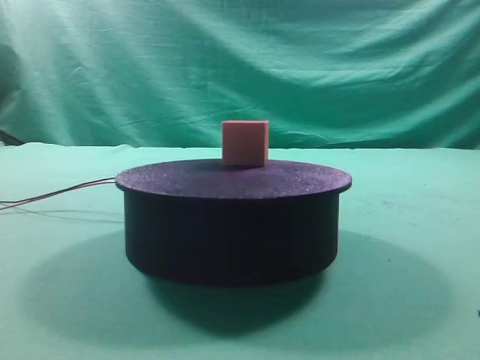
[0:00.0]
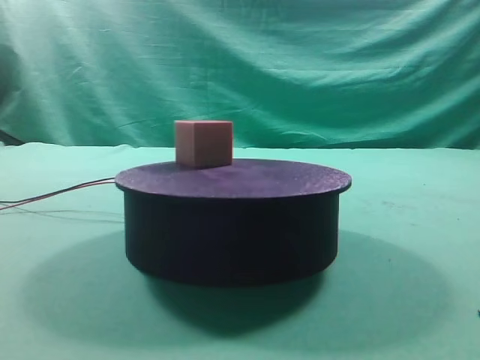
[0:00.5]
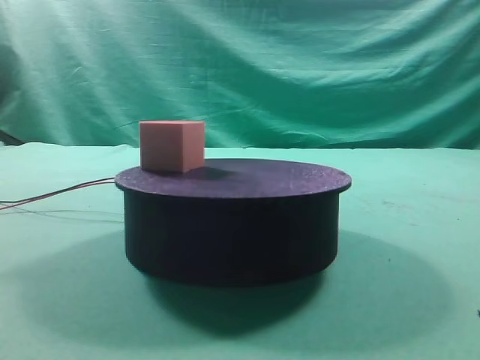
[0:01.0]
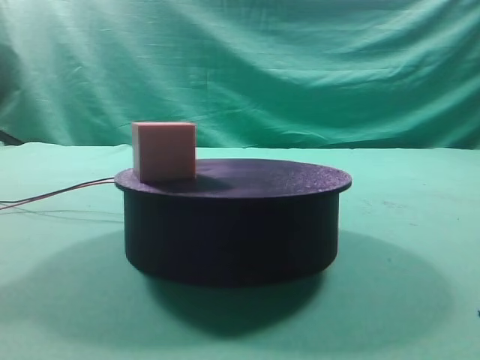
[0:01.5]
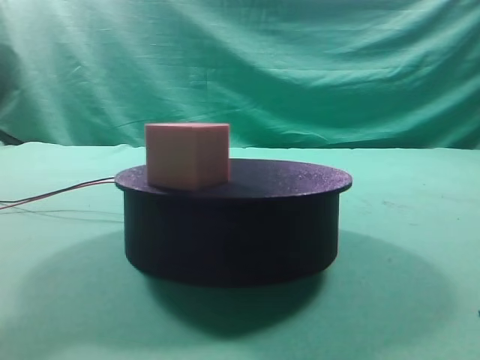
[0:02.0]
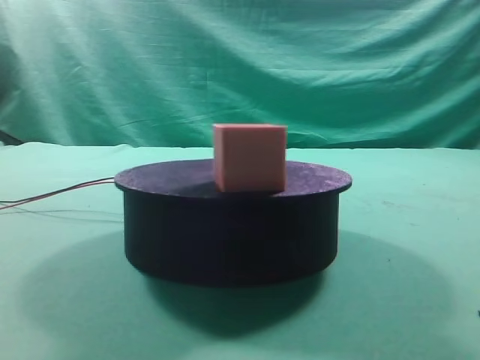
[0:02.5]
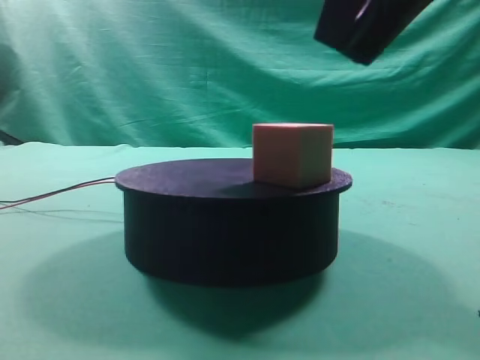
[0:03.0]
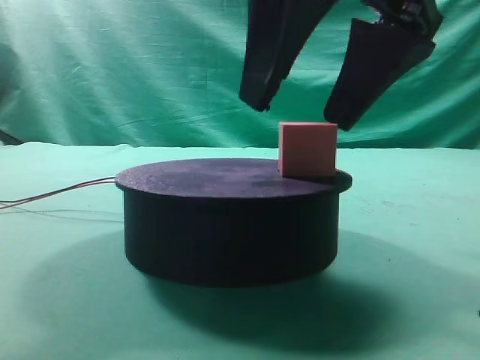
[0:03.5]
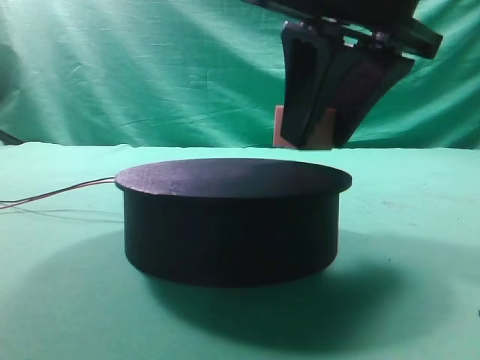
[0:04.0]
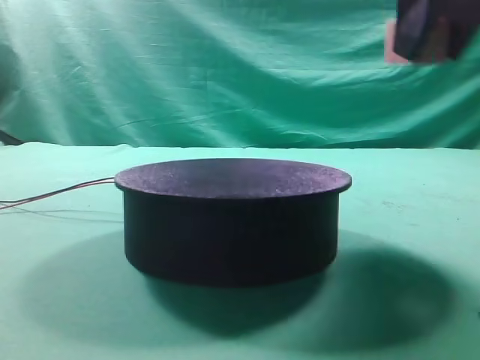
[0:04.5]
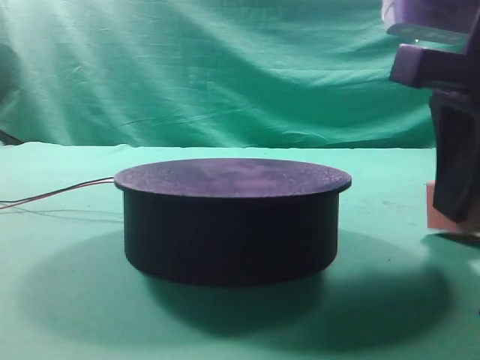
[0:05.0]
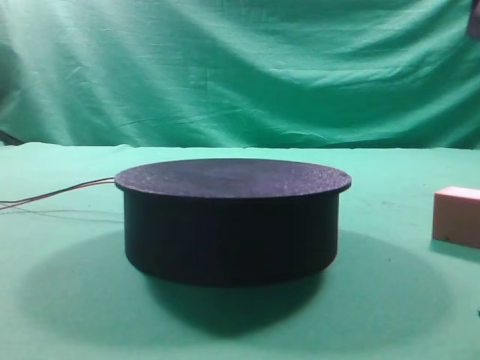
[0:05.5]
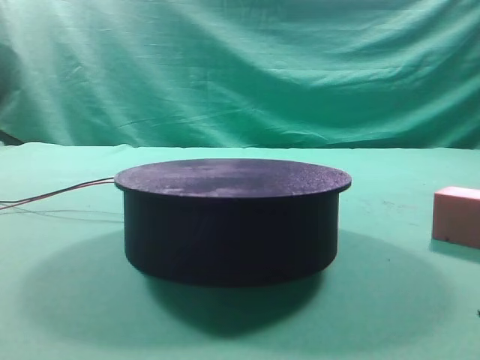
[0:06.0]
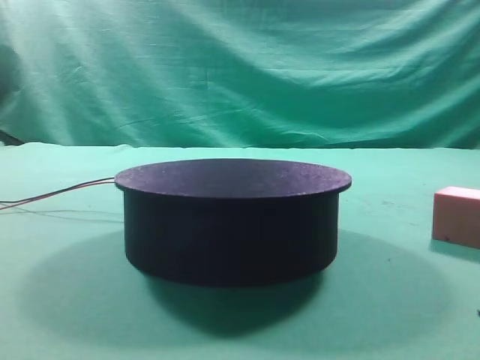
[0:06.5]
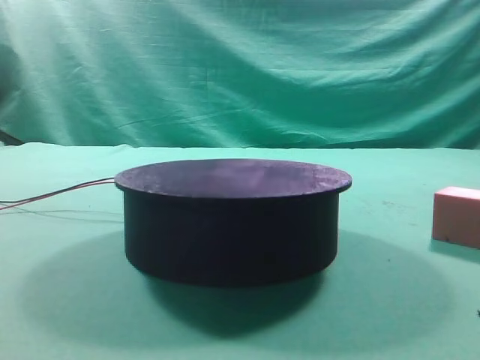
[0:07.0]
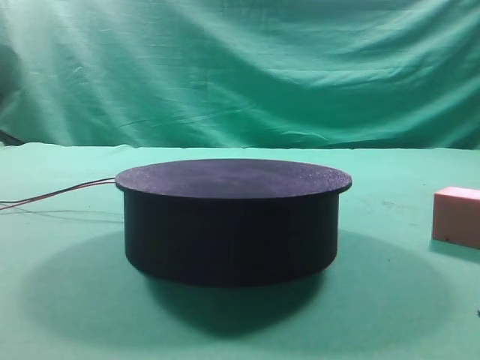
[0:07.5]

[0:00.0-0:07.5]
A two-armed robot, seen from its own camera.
Task of the whole recording: grasp the rotating cube-shaped block on the turntable and place it on the table.
Step, 0:00.0 to 0:04.0: Grasp the rotating cube-shaped block on the turntable.
Step, 0:04.5 to 0:05.0: Place the cube on the desk.

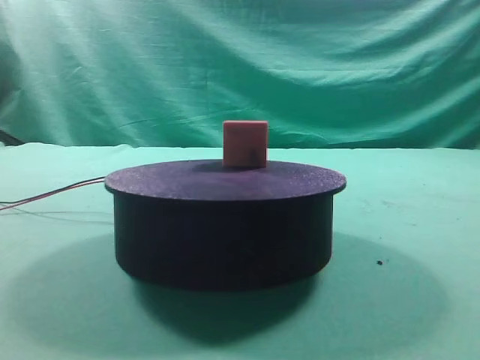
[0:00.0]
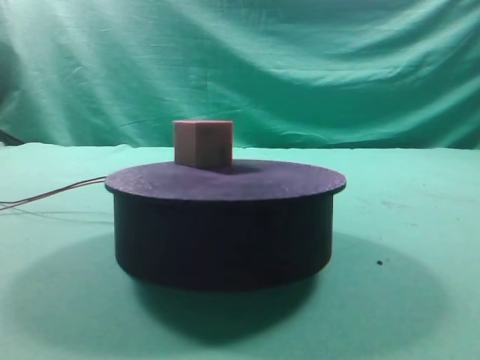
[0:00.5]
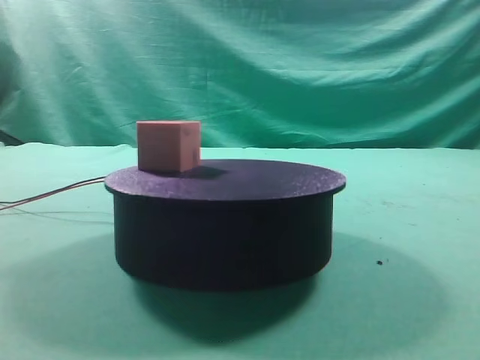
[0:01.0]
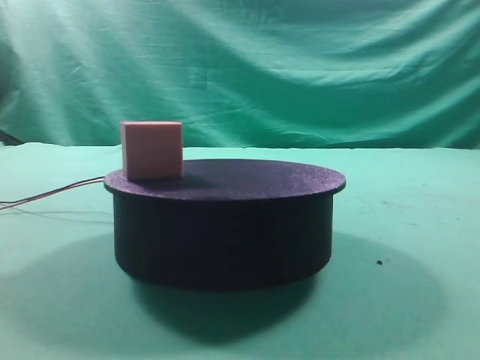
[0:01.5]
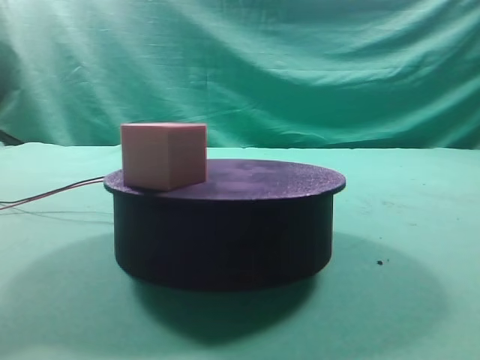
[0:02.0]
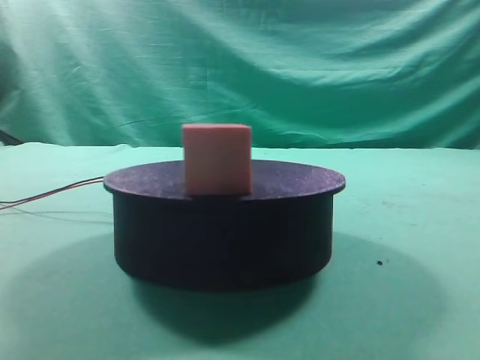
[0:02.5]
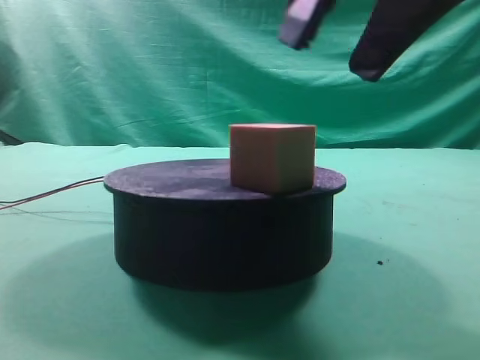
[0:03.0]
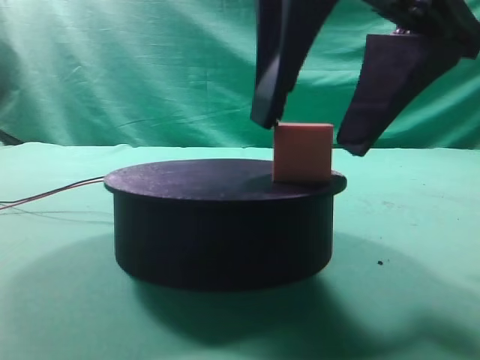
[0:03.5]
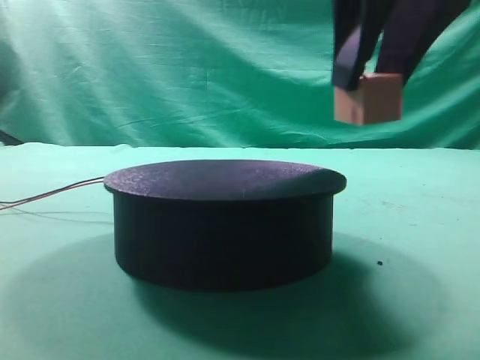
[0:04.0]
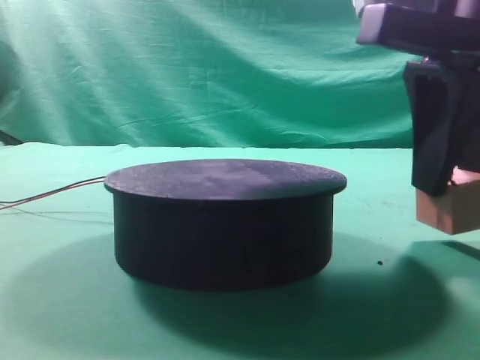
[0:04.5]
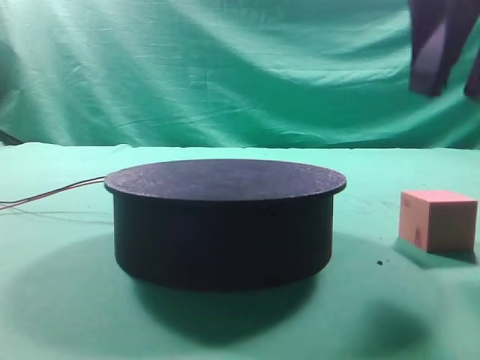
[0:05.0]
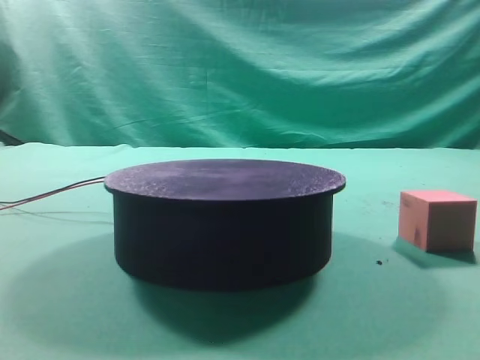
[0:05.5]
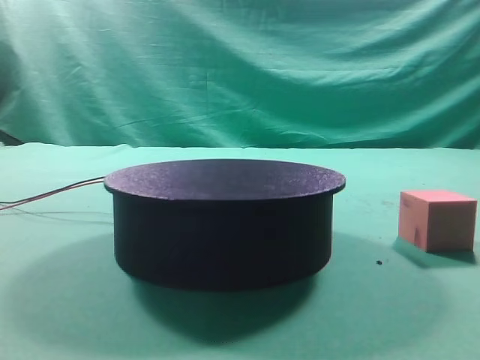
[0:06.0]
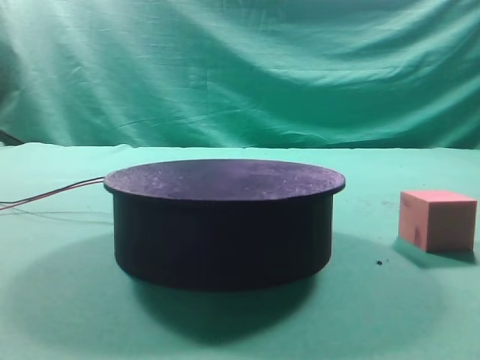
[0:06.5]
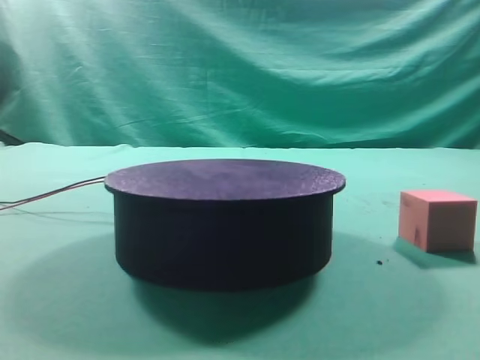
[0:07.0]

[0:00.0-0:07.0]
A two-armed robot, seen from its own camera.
Task of the whole recording: grasp the rotating cube-shaped block on the turntable and place it on the table.
Step, 0:00.0 to 0:03.5: Grasp the rotating cube-shaped block on the turntable.
Step, 0:04.0 to 0:04.5: Place the cube on the desk.

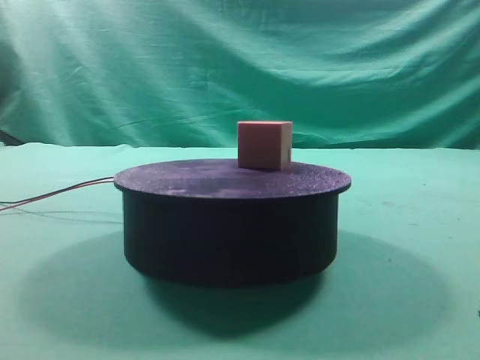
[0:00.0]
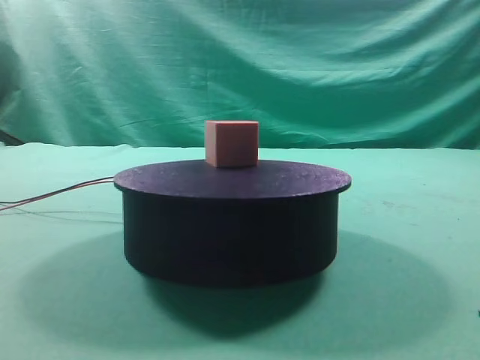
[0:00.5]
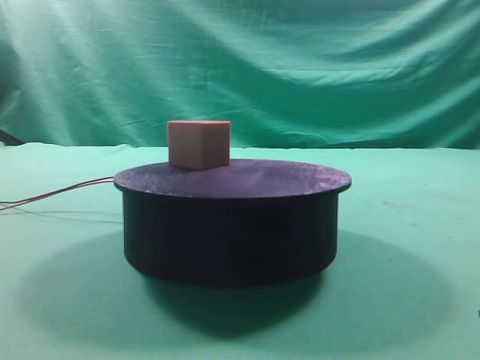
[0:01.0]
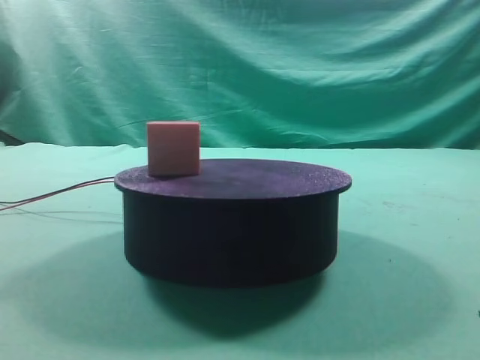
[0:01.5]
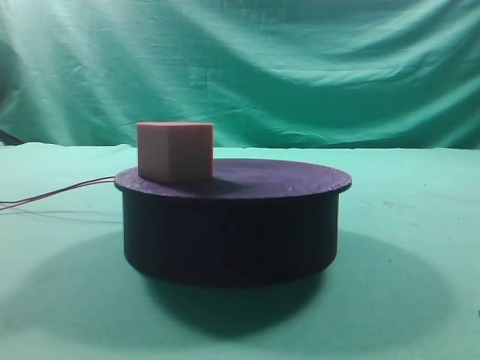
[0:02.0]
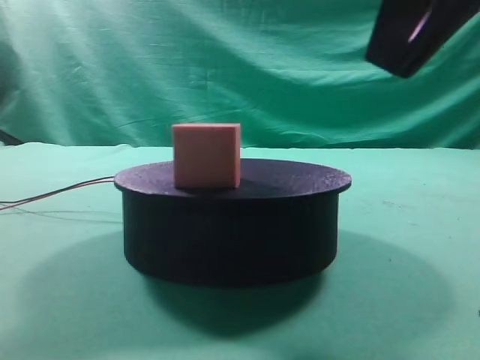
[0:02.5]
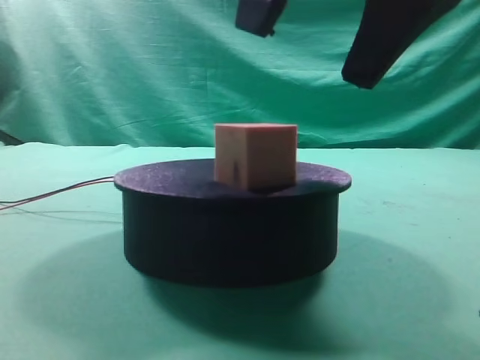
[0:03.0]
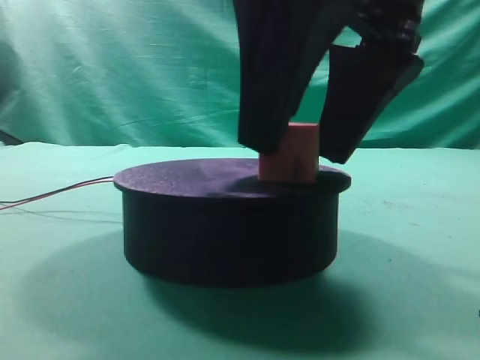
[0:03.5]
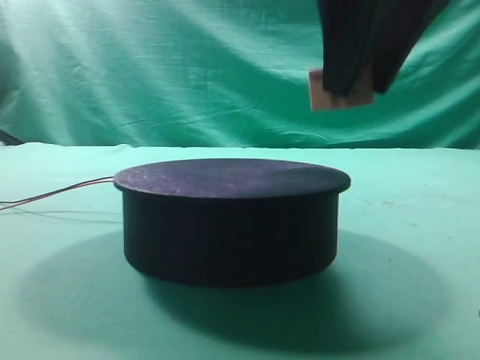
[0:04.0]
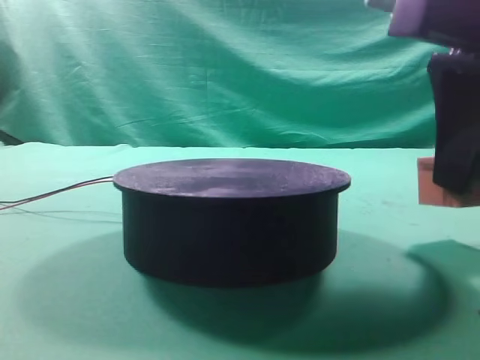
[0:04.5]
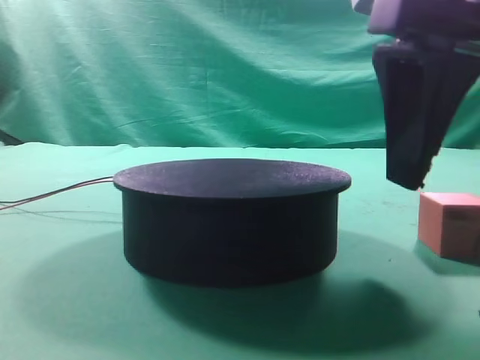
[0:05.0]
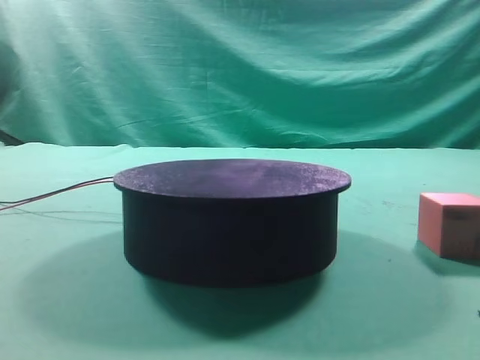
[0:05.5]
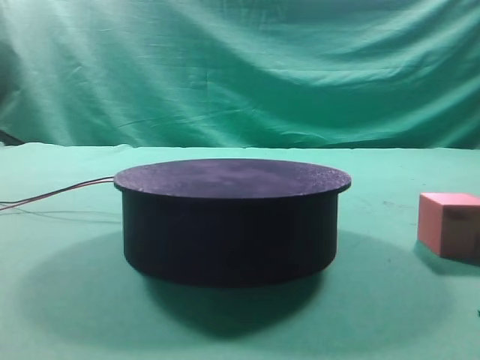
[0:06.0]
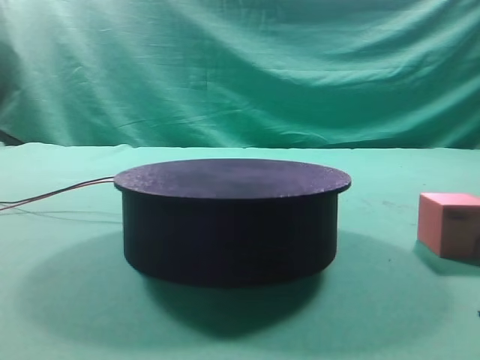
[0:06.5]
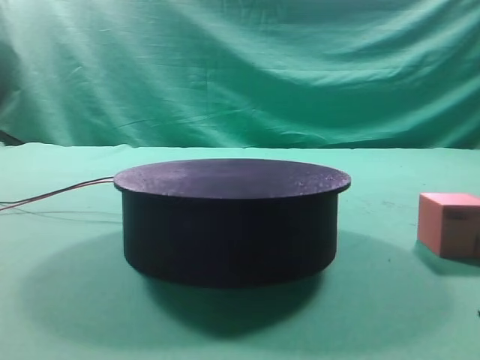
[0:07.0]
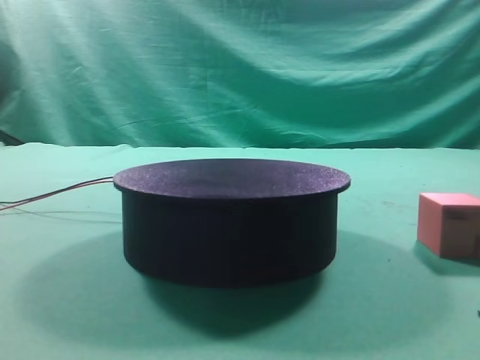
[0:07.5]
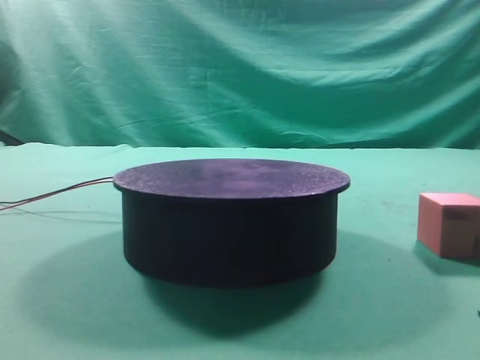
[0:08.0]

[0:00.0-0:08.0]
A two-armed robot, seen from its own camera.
Task of the whole recording: grasp the rotating cube-shaped block on the turntable and place it on the table.
Step, 0:00.0 to 0:03.5: Grasp the rotating cube-shaped block on the turntable.
Step, 0:04.0 to 0:05.0: Place the cube on the desk.

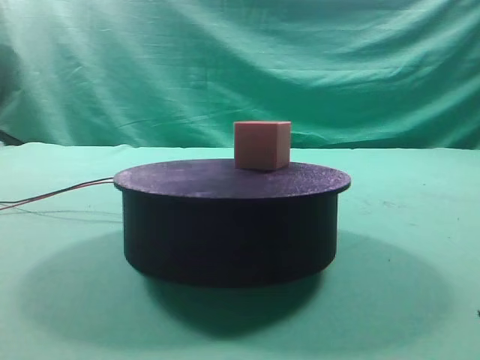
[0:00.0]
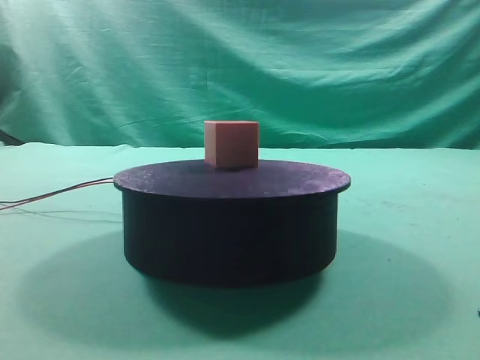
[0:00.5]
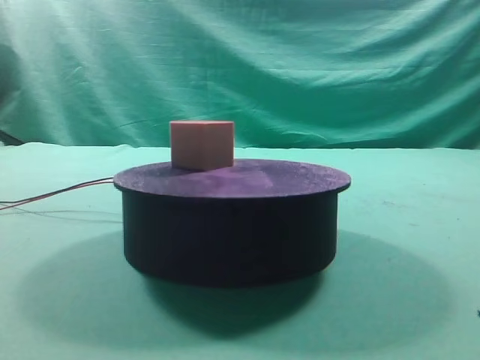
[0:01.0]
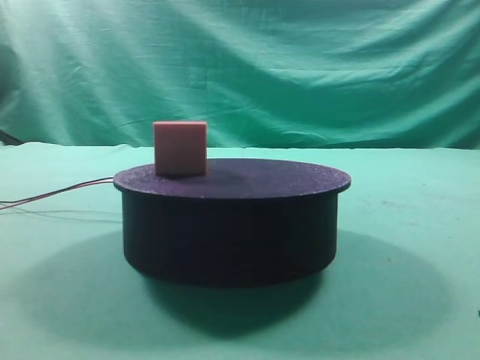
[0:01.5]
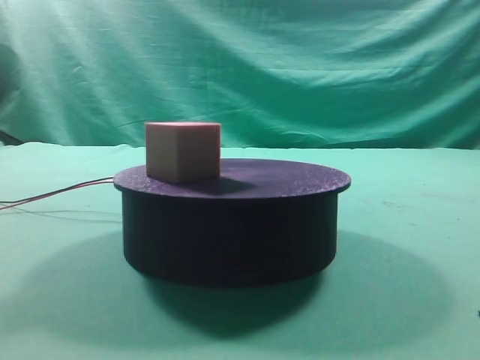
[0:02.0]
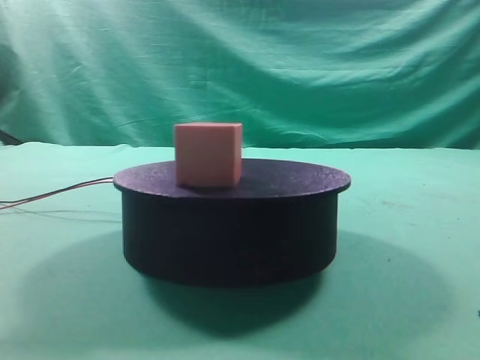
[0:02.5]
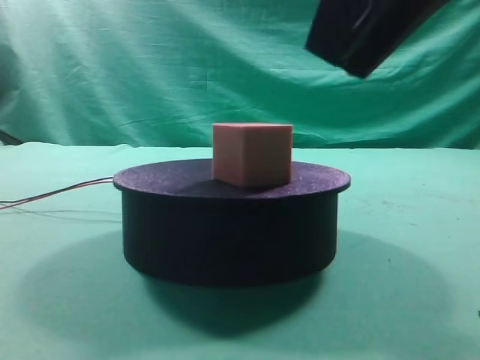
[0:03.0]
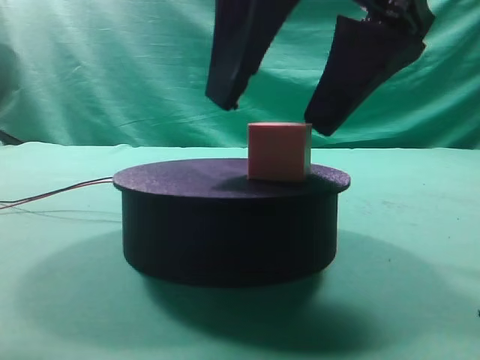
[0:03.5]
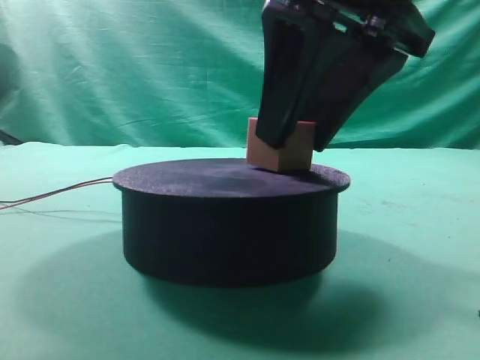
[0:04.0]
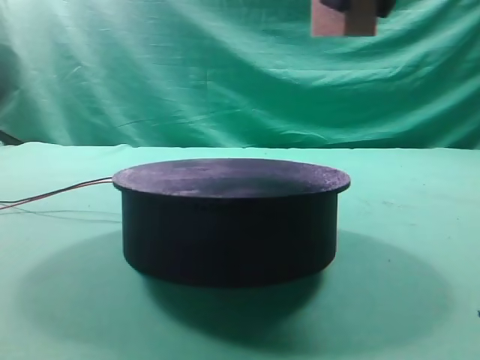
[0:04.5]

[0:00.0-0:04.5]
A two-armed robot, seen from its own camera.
Task of the whole recording: grasp the rotating cube-shaped block on the turntable and place it on the table.
Step, 0:00.0 to 0:04.0: Grasp the rotating cube-shaped block on the turntable.
